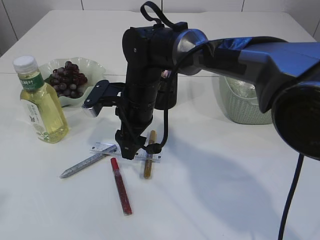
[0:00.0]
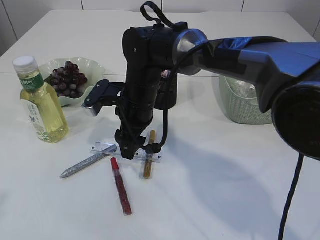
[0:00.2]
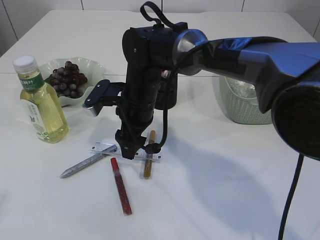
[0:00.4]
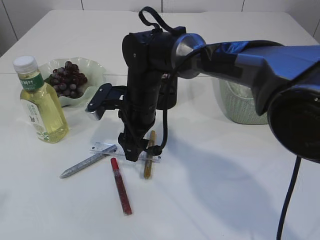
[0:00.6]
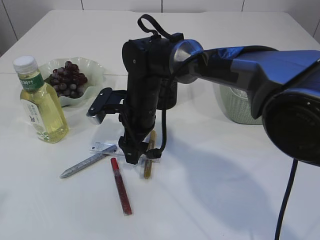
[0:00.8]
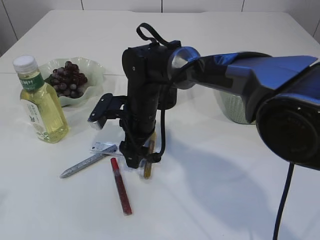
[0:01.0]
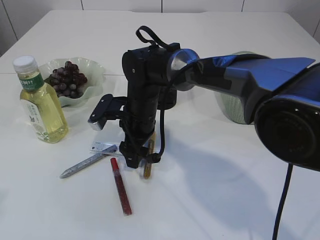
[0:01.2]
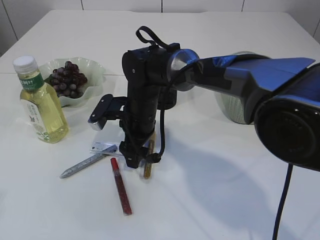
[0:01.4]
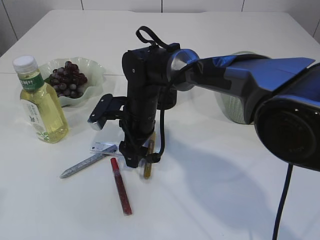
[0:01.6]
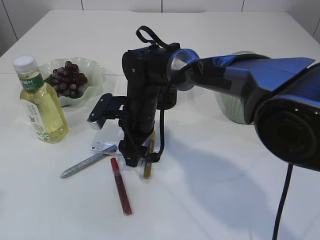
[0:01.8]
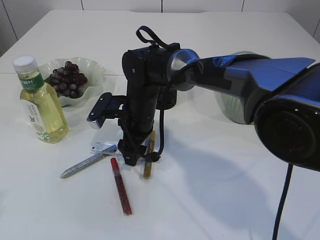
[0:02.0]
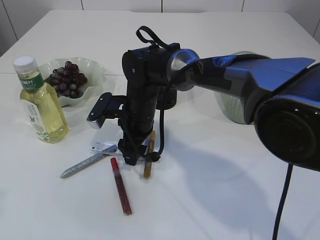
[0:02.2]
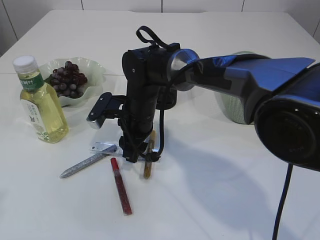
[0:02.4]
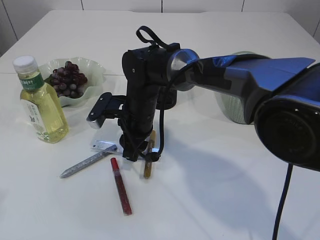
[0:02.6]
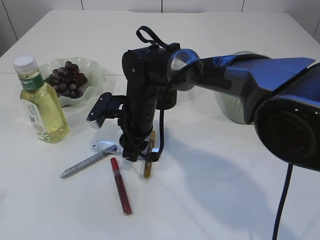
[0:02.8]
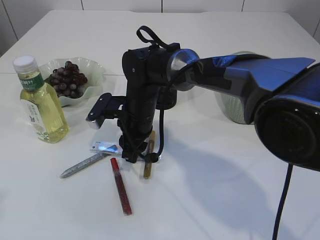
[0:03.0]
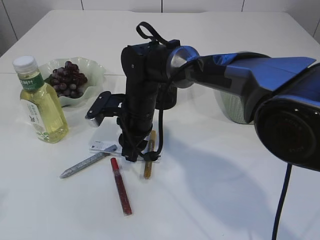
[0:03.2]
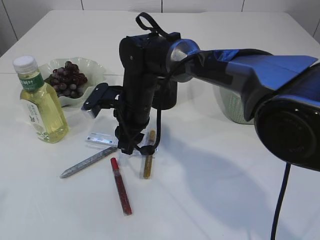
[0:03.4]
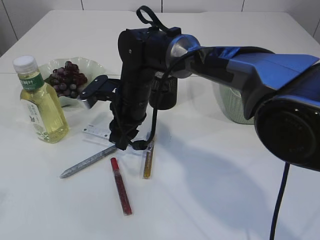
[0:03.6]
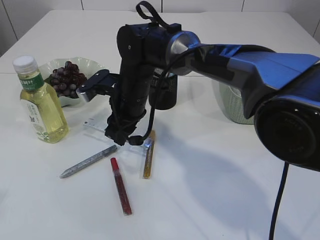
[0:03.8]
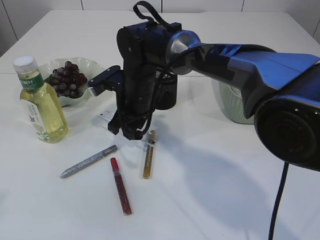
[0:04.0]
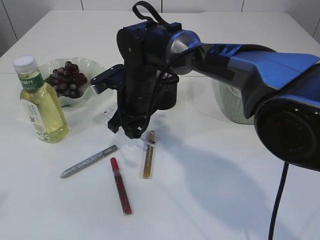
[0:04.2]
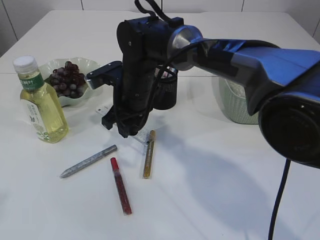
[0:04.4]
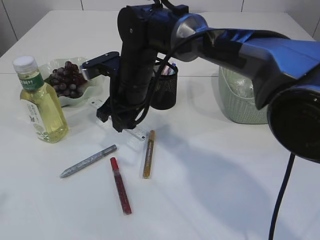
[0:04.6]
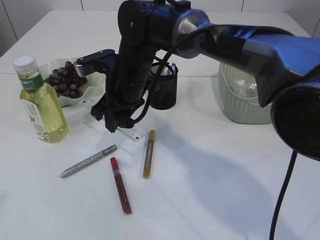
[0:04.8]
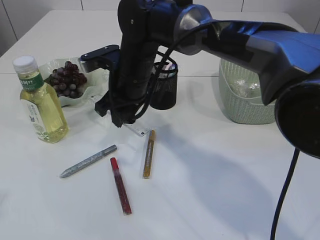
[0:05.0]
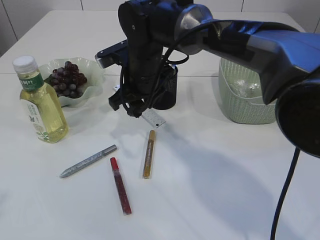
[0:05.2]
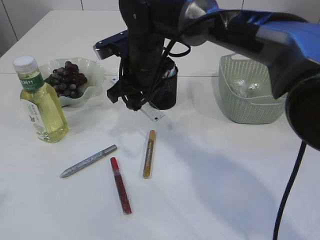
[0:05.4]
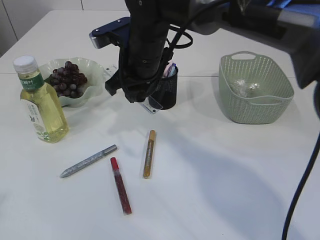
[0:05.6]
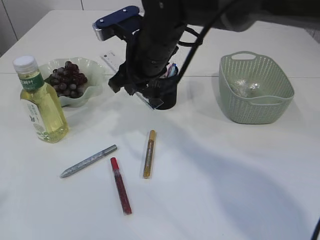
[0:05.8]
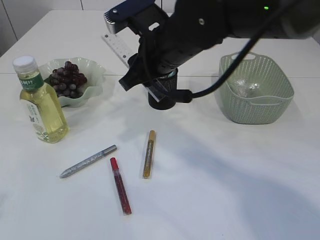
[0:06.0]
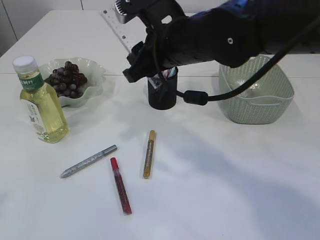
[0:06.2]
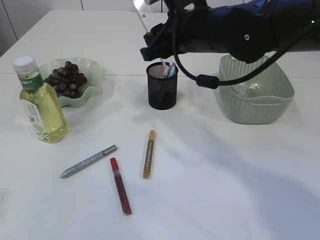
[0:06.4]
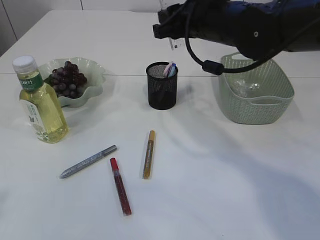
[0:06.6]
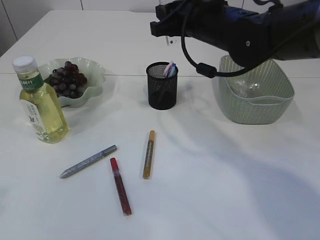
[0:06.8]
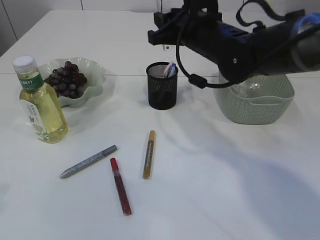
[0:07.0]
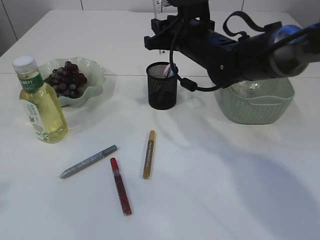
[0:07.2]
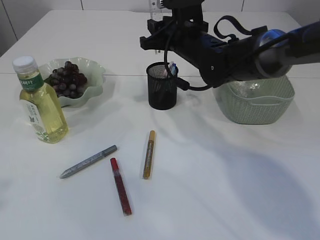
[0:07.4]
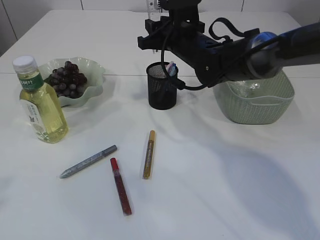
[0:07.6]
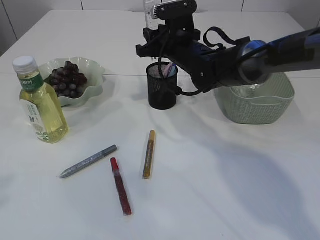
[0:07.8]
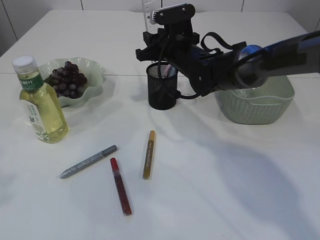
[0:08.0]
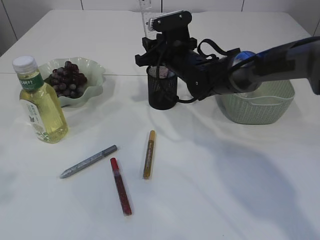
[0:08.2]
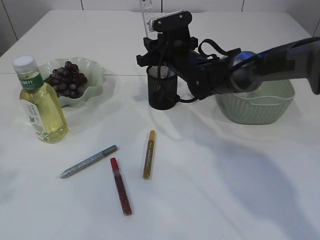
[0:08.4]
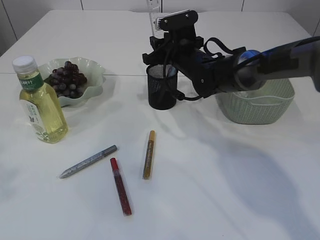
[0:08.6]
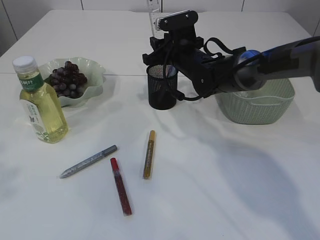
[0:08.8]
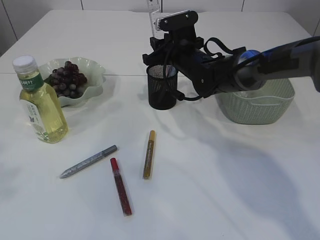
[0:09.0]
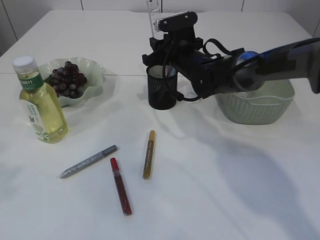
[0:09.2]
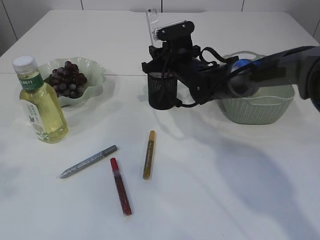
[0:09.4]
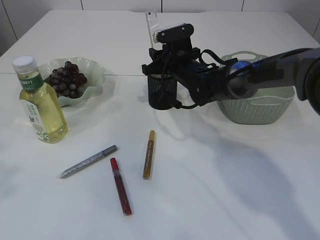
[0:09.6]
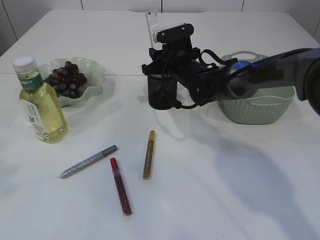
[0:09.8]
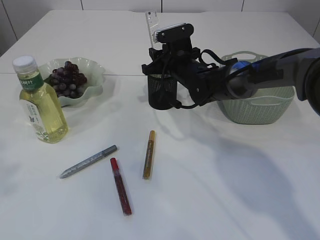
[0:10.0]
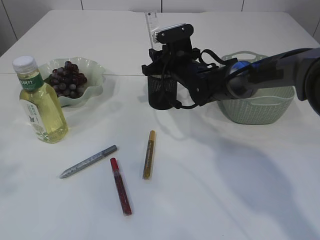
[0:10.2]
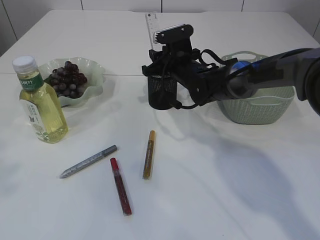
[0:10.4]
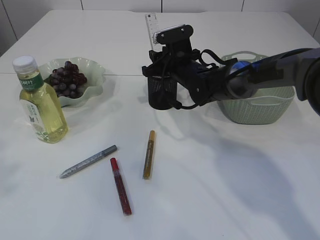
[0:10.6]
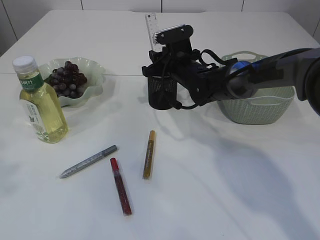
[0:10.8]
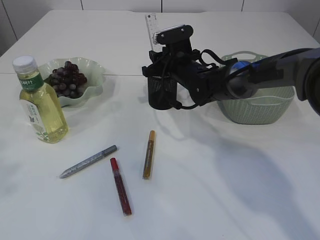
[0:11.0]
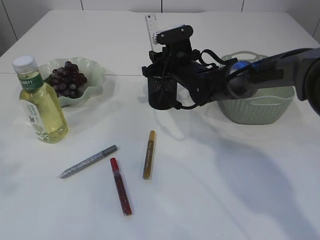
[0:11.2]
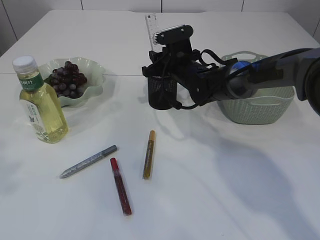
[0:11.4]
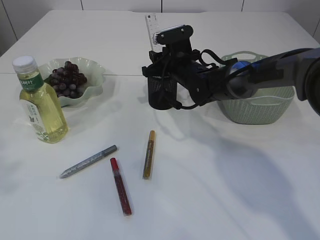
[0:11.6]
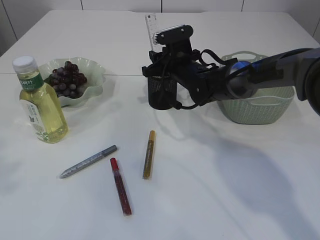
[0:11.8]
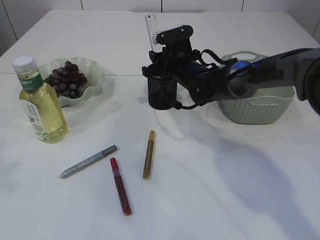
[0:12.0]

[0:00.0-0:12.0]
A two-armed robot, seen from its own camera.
Step, 0:00.0 to 0:04.2: pick up the ruler.
0:00.0 to 0:01.6: The grippers move only a little.
0:01.6 to 0:03.0: The right gripper closes.
0:04.4 to 0:06.0: The right gripper goes some 10 cm upward, backward and to the right.
0:06.0 to 0:07.6: The right gripper goes some 10 cm forward.
0:07.6 to 0:09.0: The right gripper moves some 5 cm.
0:09.0 to 0:10.4: The grippers stay close to where they were, moving slightly.
0:10.4 to 0:12.0: Both grippers stay put.

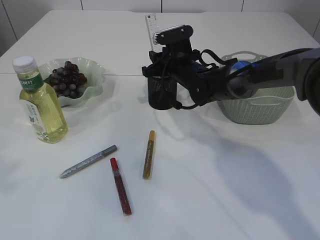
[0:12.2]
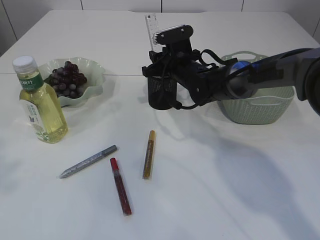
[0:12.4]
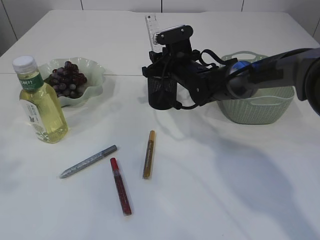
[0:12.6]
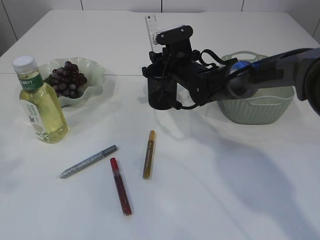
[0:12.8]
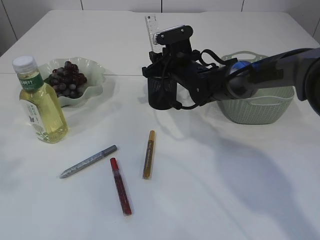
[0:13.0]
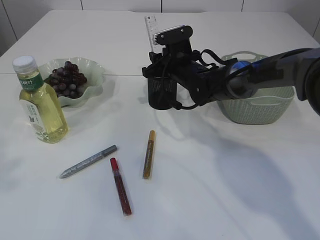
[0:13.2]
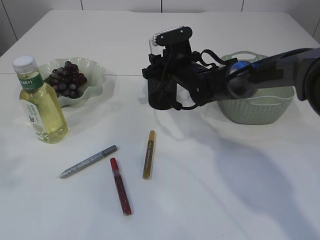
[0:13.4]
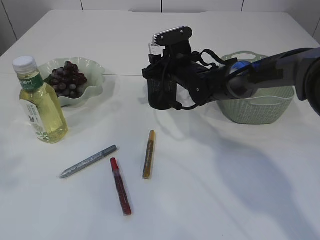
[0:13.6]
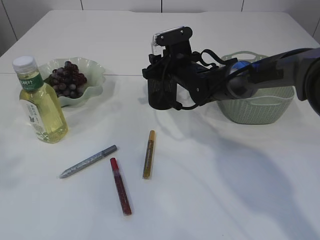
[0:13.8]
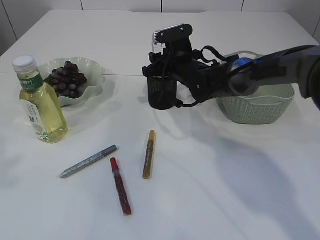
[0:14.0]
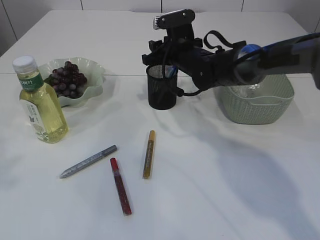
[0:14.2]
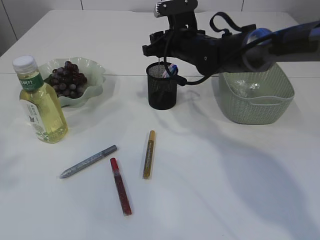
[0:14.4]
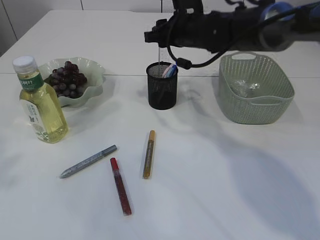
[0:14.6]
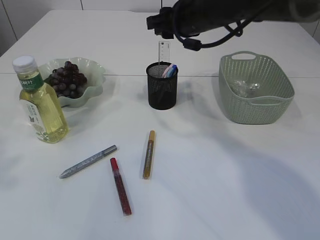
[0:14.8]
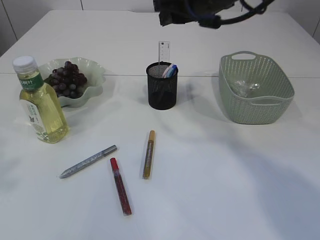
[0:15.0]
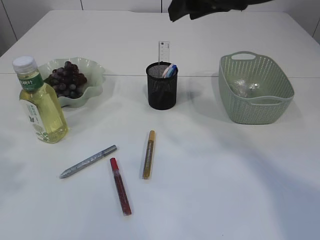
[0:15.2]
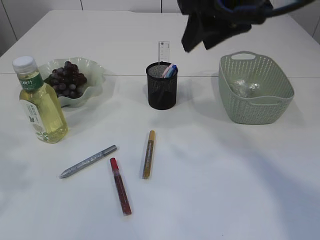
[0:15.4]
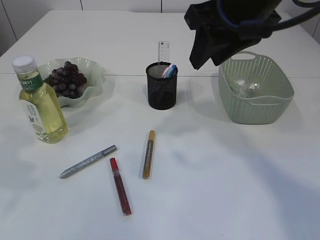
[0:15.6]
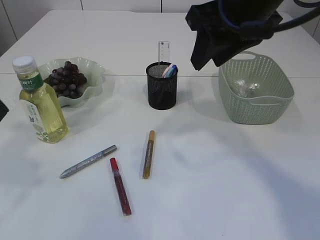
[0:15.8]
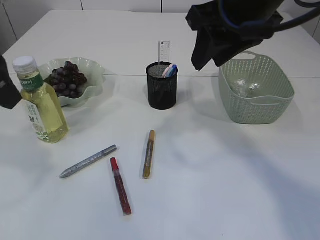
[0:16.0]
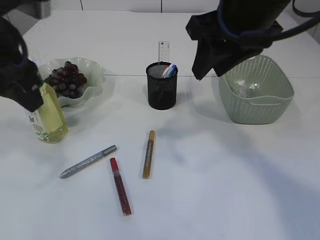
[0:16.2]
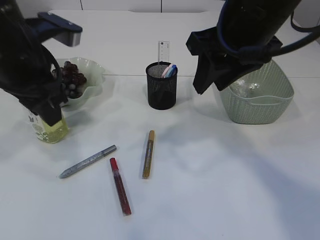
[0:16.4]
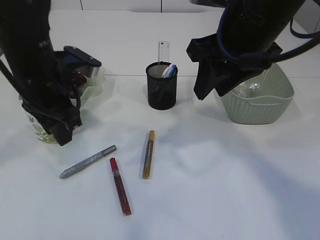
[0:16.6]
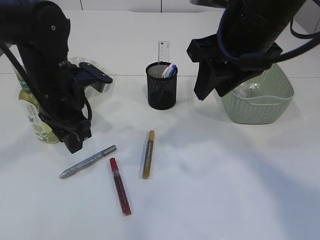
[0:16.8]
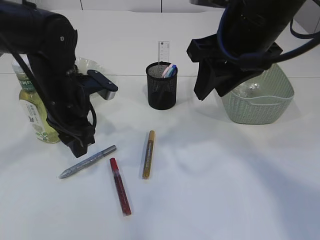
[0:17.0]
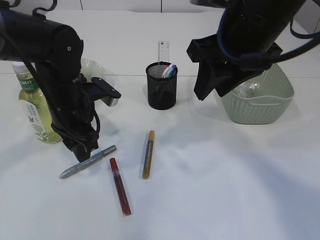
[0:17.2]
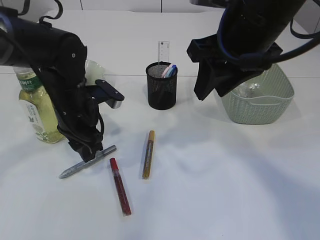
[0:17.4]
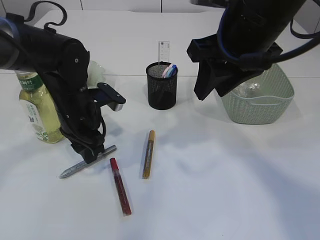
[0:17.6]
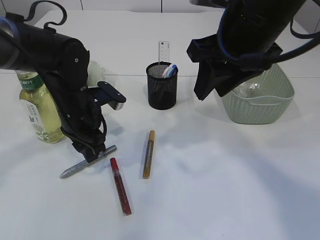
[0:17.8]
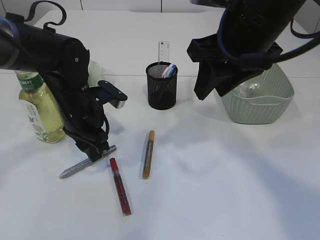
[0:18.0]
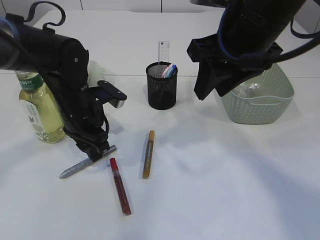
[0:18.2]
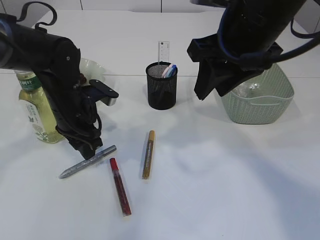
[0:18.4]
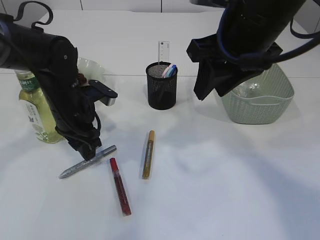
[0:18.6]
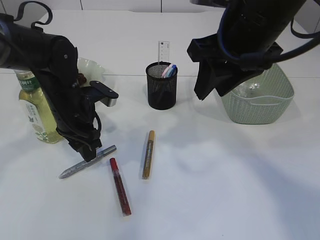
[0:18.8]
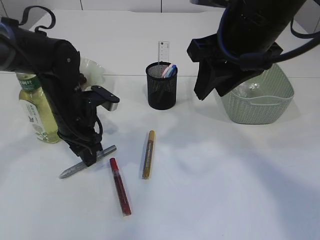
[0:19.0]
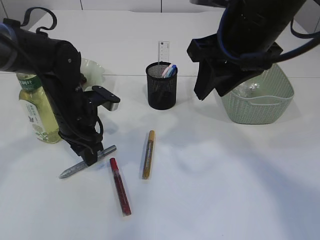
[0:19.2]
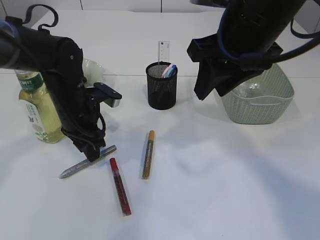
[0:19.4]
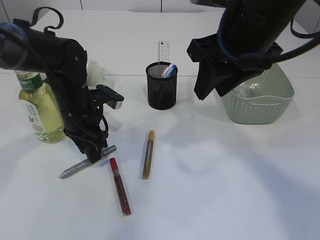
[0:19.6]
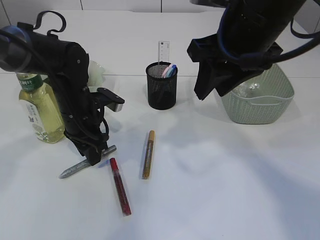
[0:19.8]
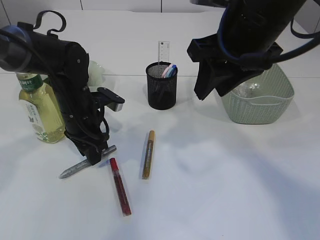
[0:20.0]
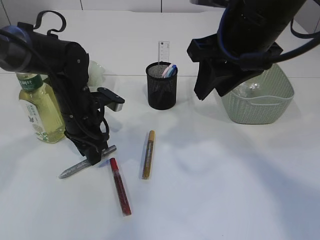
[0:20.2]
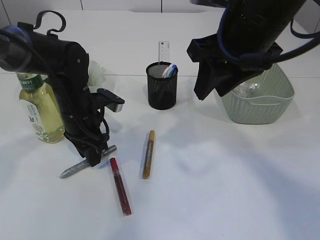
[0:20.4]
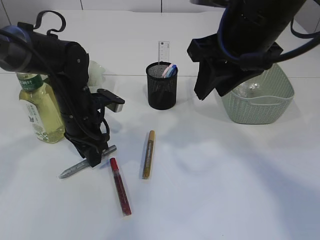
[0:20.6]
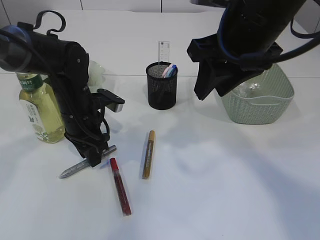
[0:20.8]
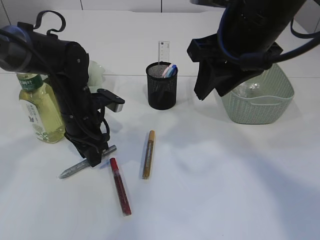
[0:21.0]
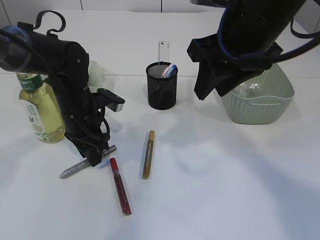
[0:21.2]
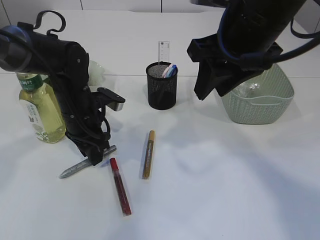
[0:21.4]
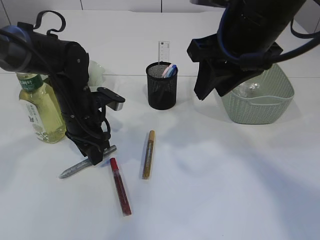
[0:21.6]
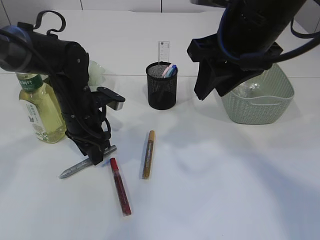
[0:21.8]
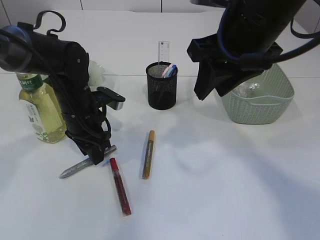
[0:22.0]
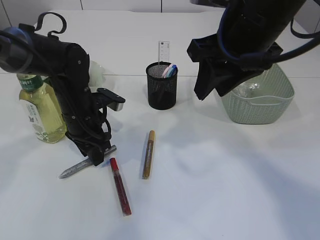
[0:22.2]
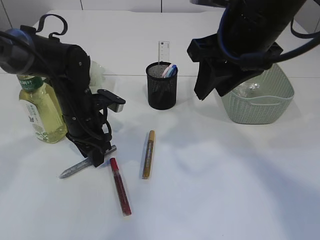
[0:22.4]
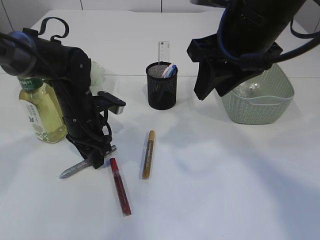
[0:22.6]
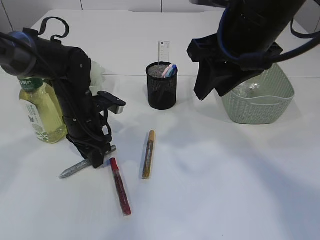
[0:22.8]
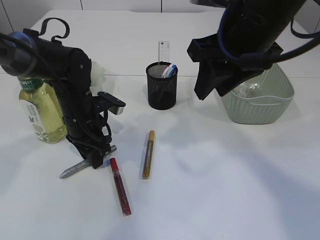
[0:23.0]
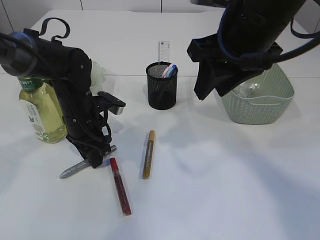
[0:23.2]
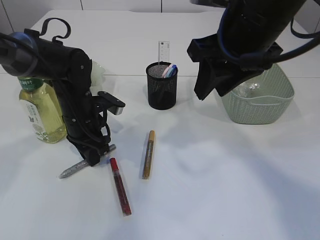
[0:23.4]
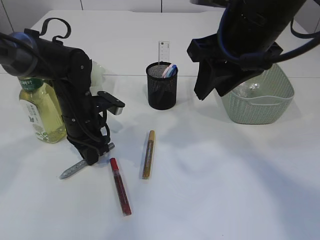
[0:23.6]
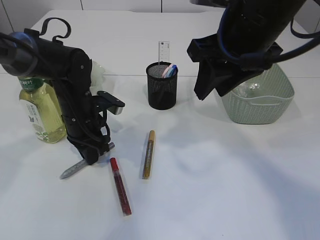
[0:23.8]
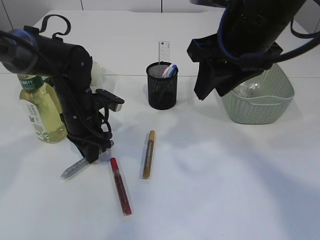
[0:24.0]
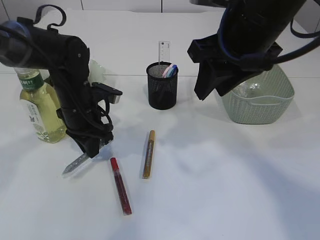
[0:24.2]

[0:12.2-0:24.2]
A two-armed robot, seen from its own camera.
Step, 0:12.2 to 0:14.6: Place the ruler into the pen holder.
0:12.2 to 0:13.8: Both grippers stay about where they are.
0:13.8 to 0:15.2: The right gripper heads upward and backward, covering about 25 cm.
0:15.2 to 0:16.6: The left gripper shifts some 20 cm forward, downward and to the right. The right gripper moves backward, approximately 5 cm.
0:16.6 to 0:18.2: The left gripper is displaced downward by about 10 cm.
0:18.2 to 0:19.8: The grippers stay close to where they were, moving slightly.
0:19.8 to 0:22.6: Both grippers stay put.
0:22.6 to 0:24.2: The left gripper closes its fingers.
